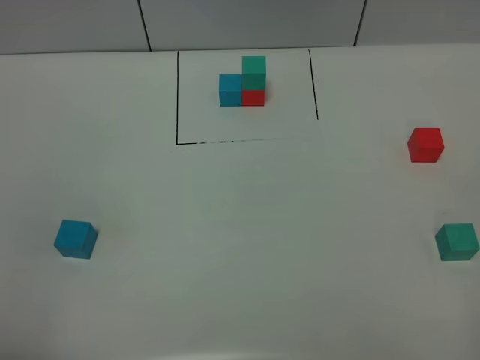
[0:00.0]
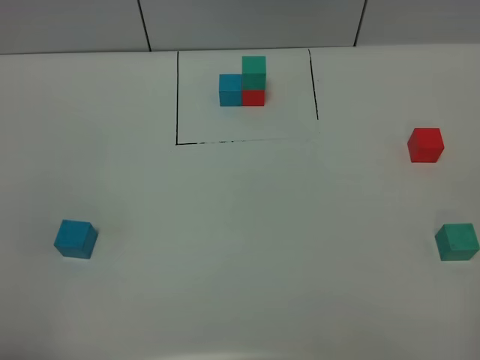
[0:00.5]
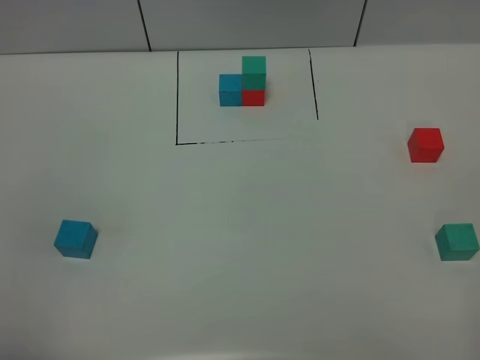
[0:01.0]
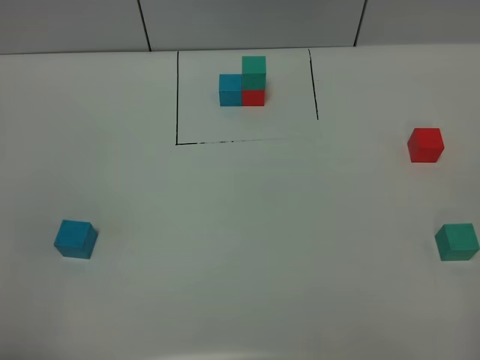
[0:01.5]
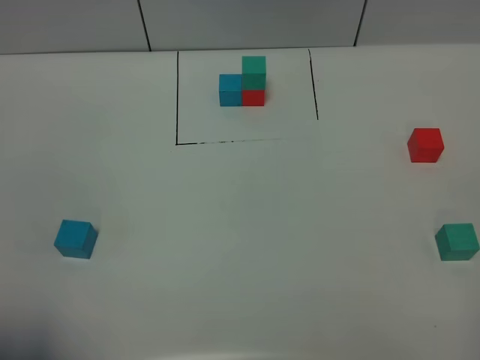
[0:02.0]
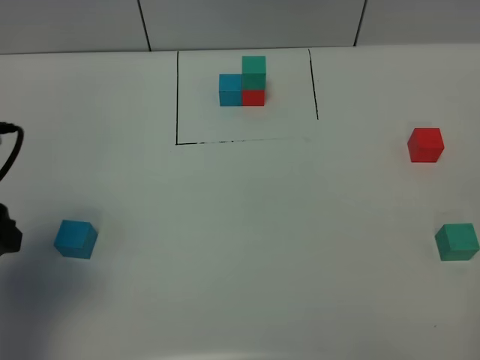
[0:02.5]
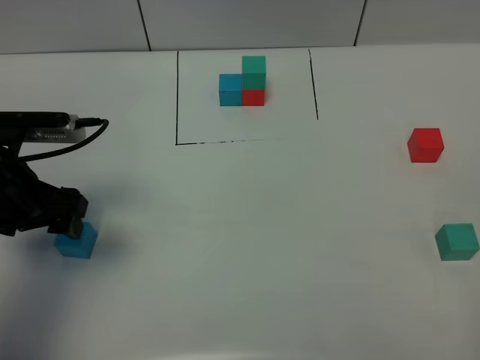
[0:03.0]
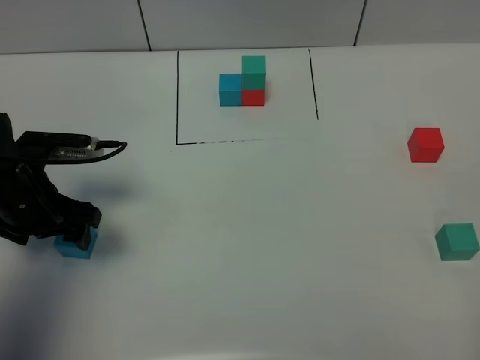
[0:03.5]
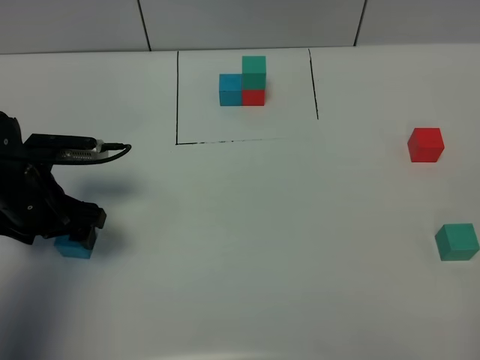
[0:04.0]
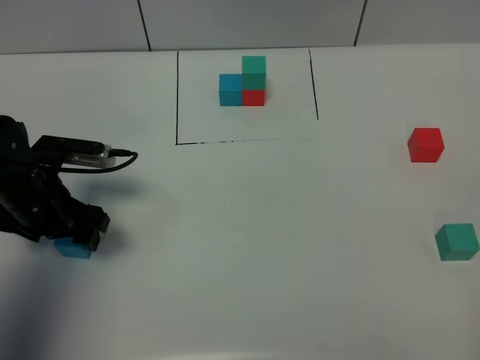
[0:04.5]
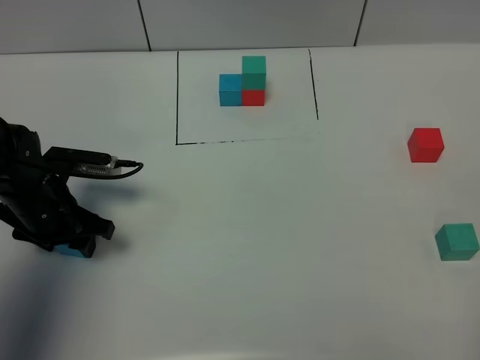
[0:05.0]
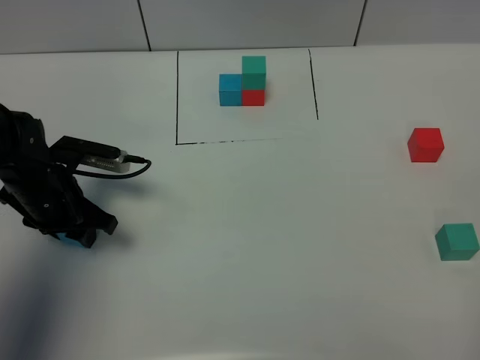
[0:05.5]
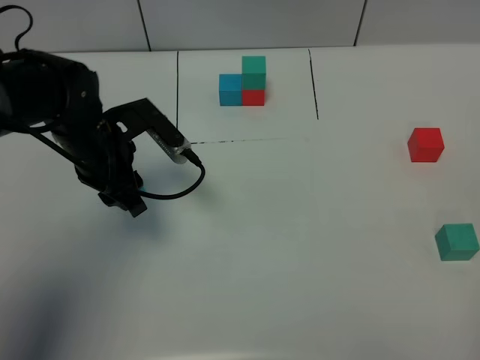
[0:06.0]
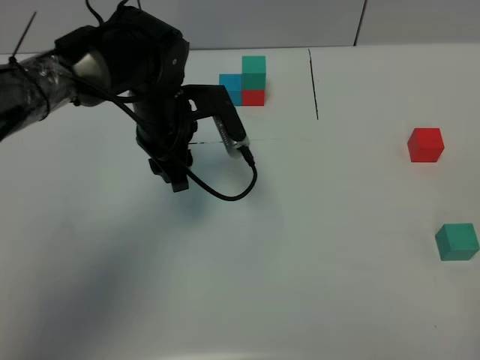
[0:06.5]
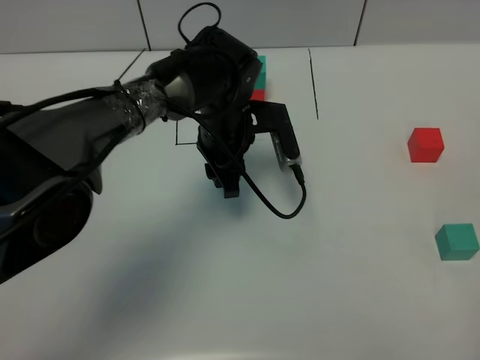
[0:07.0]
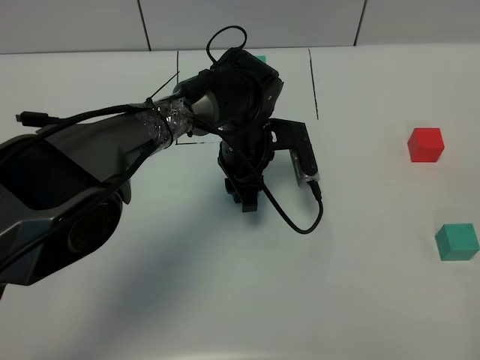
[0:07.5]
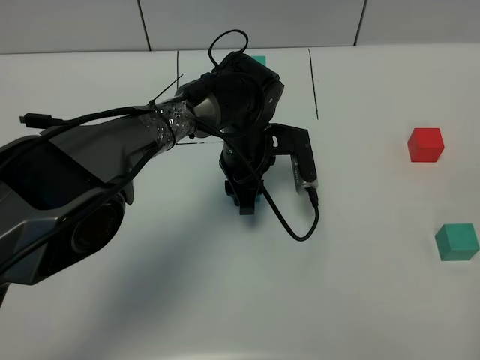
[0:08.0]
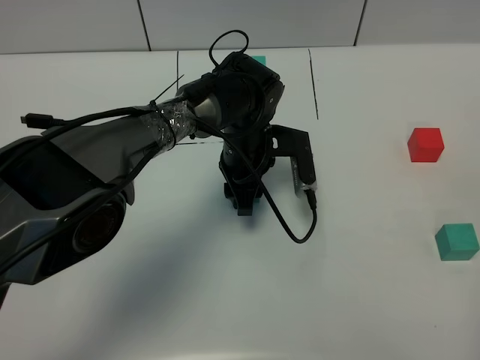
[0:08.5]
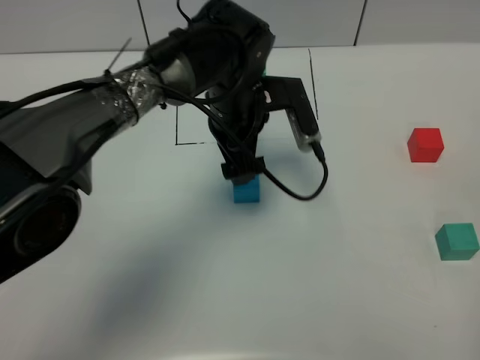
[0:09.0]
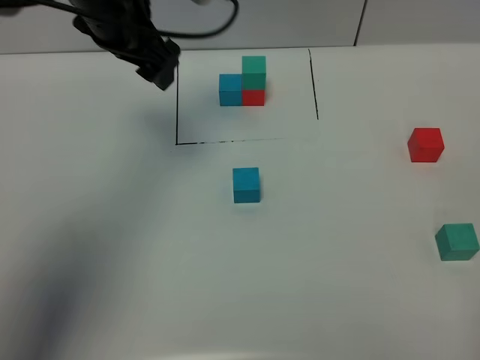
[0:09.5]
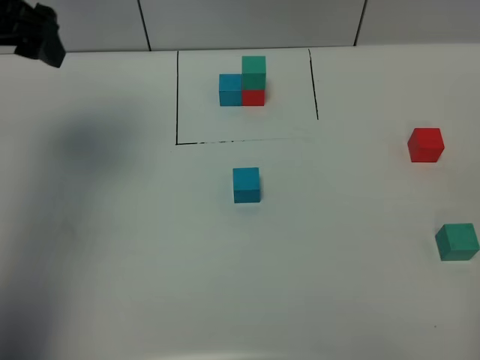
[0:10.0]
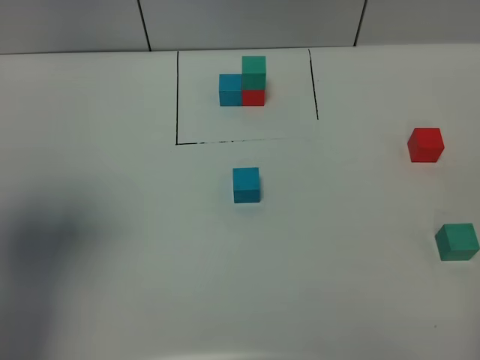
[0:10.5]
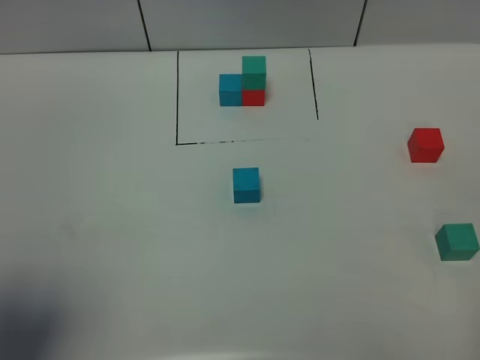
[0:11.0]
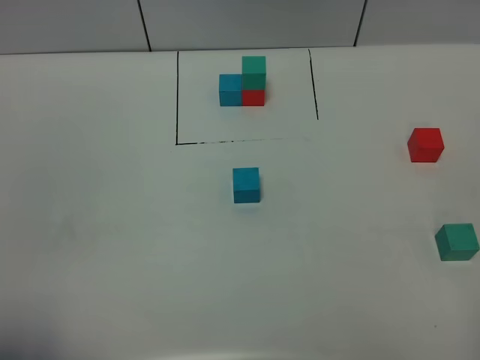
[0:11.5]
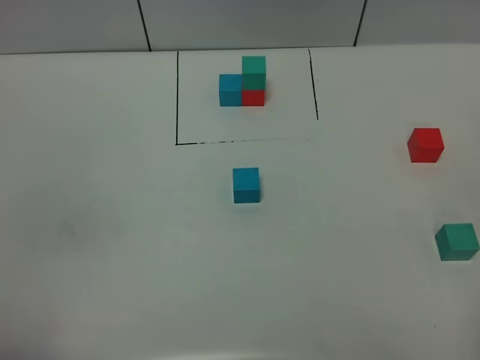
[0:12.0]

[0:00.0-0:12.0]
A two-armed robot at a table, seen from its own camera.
Task of the whole recording: According to the building block template in front, assemble the scattered blocks together.
Step, 0:00.0 to 0:08.5: Put the blue build block in the center of the table.
0:02.0 to 0:04.0: The left gripper travels forward and downward by about 30 cm.
0:04.0 to 0:06.0: The left gripper is displaced to the right and forward by approximately 10 cm, and closes its fingers.
0:06.0 to 0:08.0: The left gripper goes roughly 20 cm to the right.
0:08.0 to 0:10.0: The left gripper is displaced to the left and upward by approximately 35 cm, and opens its fingers.
0:10.0 to 0:12.0: The left gripper moves backward, some 35 cm.

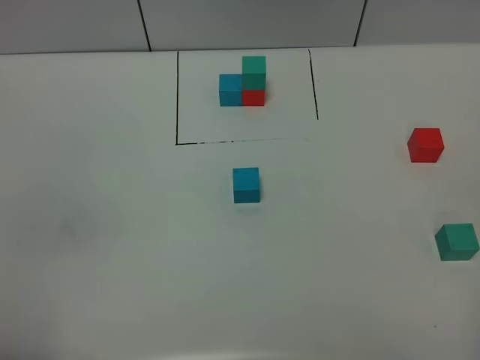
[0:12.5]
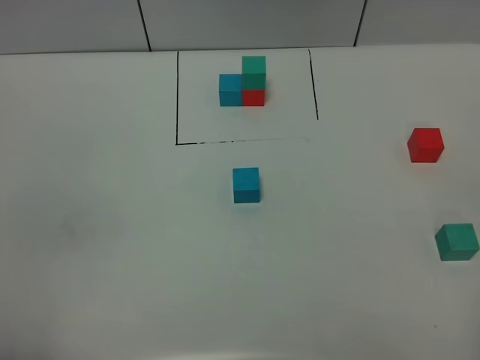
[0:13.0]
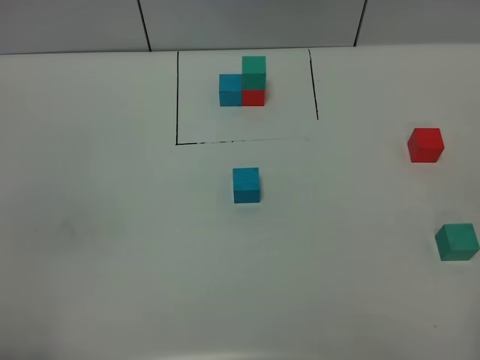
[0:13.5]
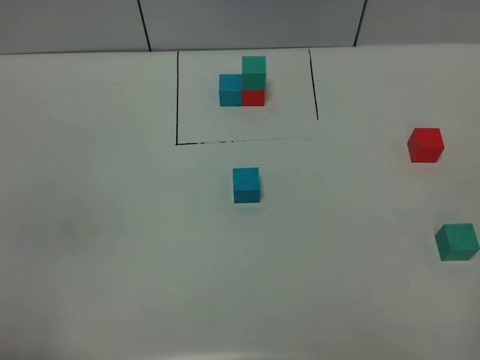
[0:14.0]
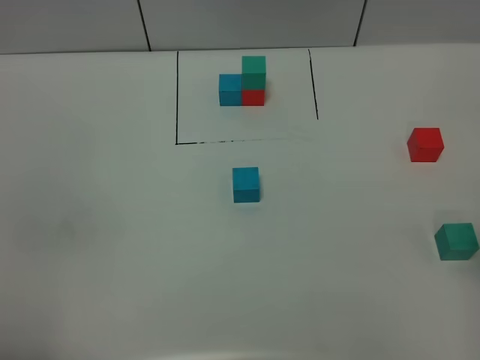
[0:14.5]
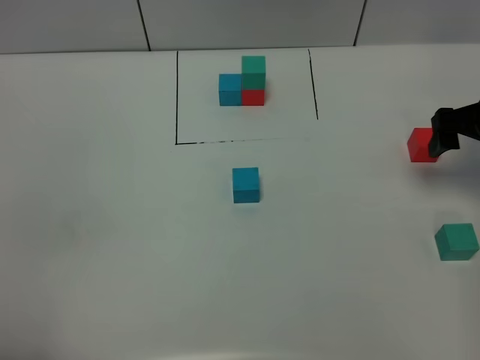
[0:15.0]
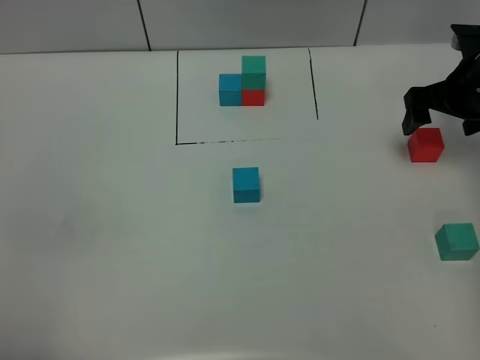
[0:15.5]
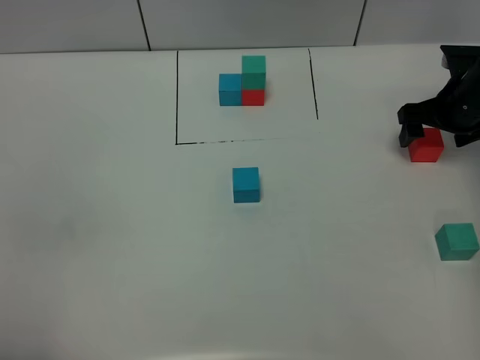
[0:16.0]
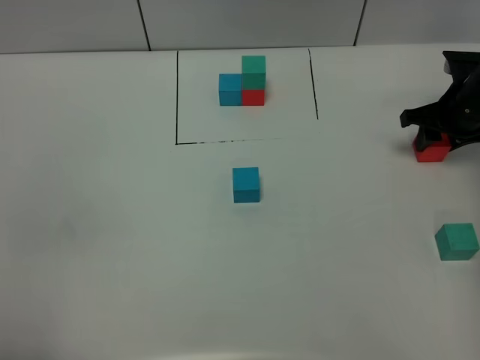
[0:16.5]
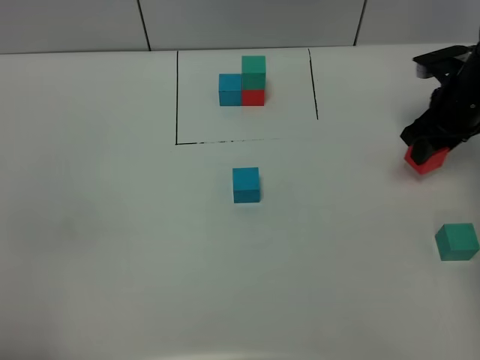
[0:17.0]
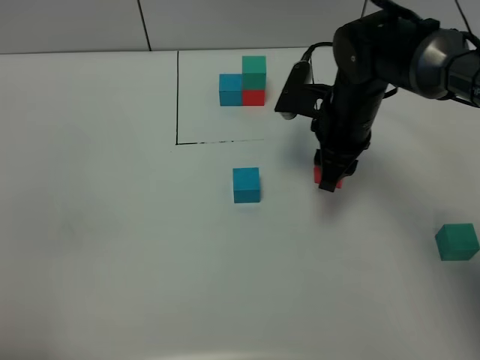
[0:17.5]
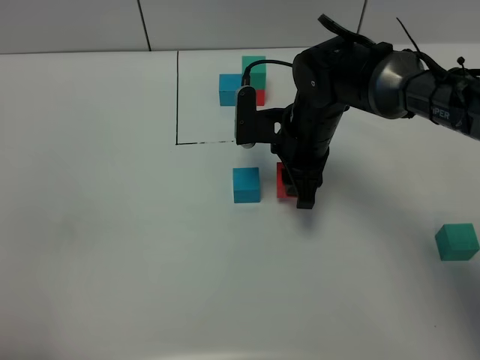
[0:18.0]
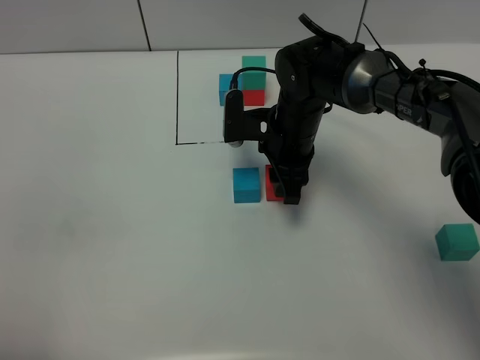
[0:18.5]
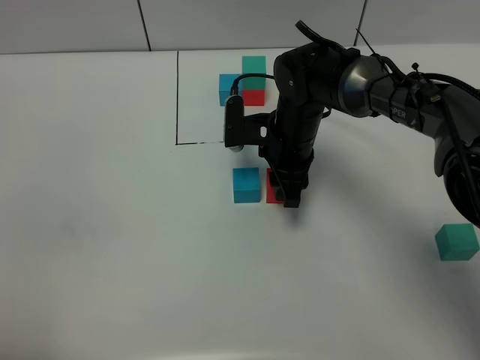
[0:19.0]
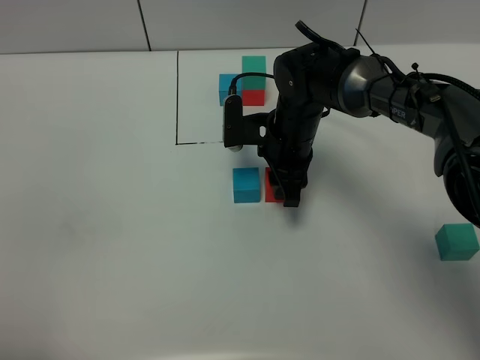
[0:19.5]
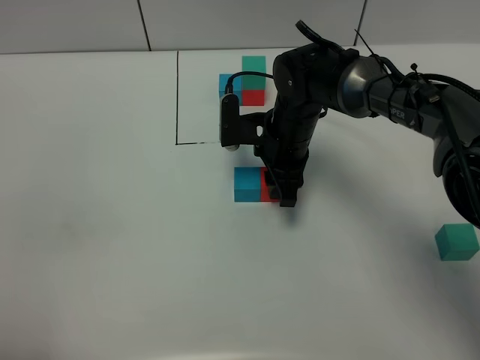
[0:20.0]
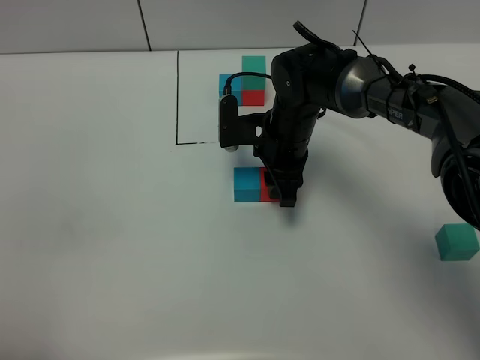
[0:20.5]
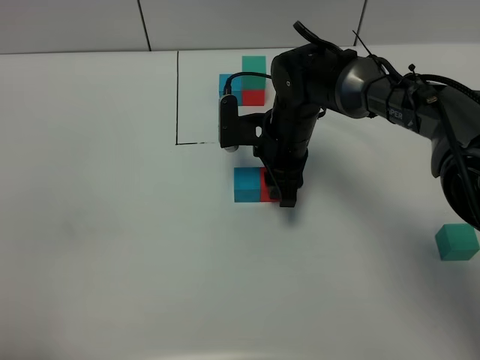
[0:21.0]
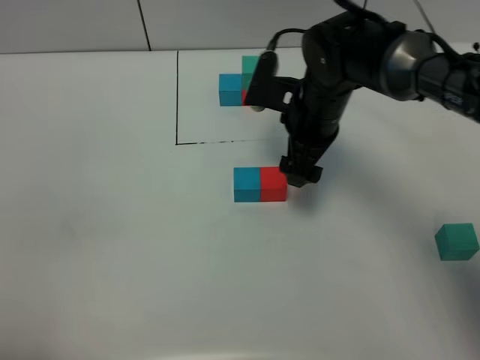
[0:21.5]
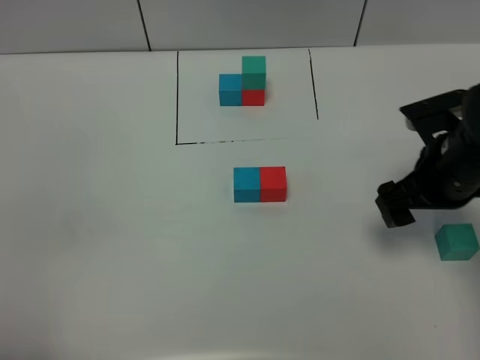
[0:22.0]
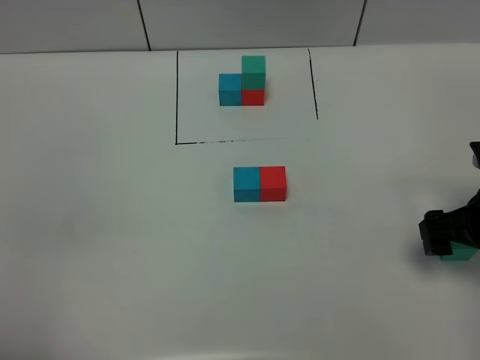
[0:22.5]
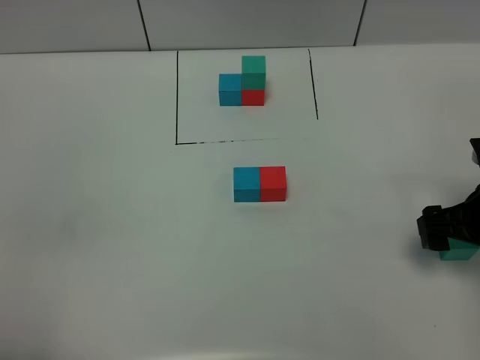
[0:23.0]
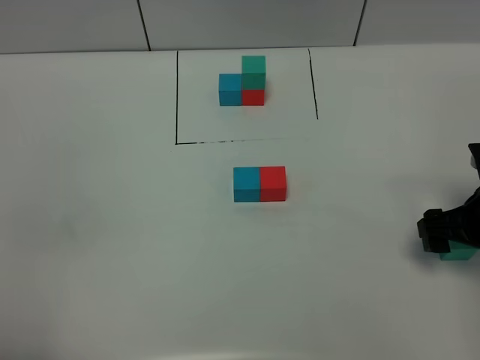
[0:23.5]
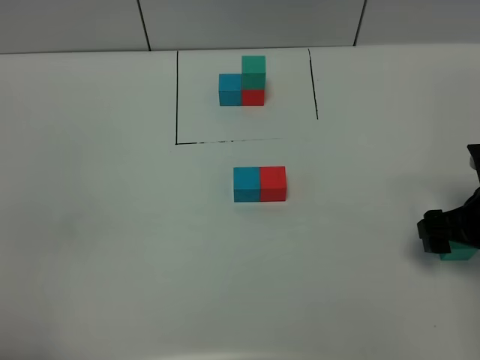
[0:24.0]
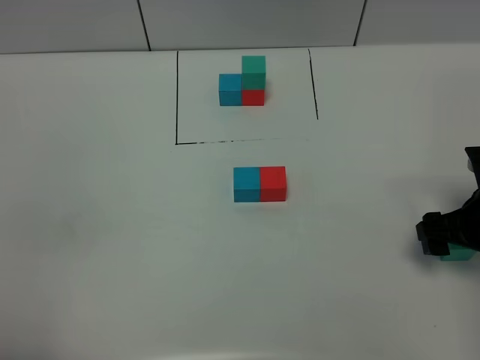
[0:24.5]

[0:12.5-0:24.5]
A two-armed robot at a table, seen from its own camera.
Task of the whole recording: According to the building block template in front, assemble the scattered blocks together.
Step, 0:12.5 to 0:21.0: Put the red build block on the right of the blue build block.
0:14.5 to 0:16.5: The right gripper travels forward and downward by roughly 30 cm, and closes its fingers.
0:16.5 to 0:18.5: The right gripper heads to the left, covering about 25 cm.
0:18.5 to 0:20.5: The two grippers keep their place.
0:20.5 to 0:22.5: The right gripper goes roughly 25 cm to the right and backward, and opens.

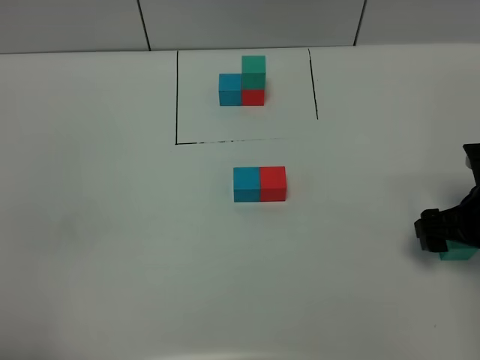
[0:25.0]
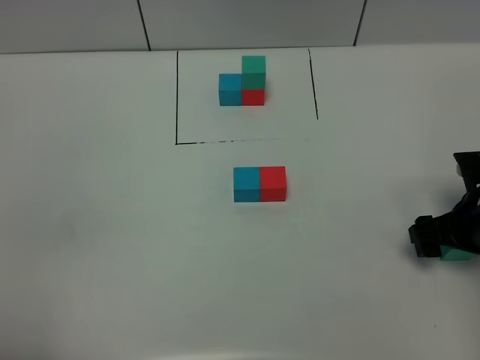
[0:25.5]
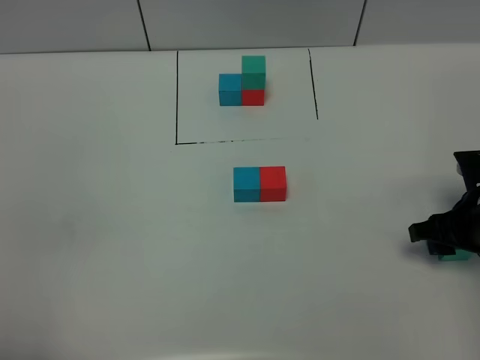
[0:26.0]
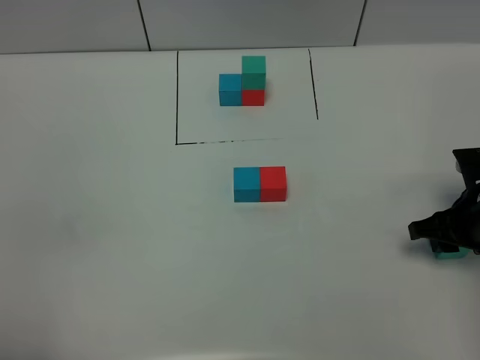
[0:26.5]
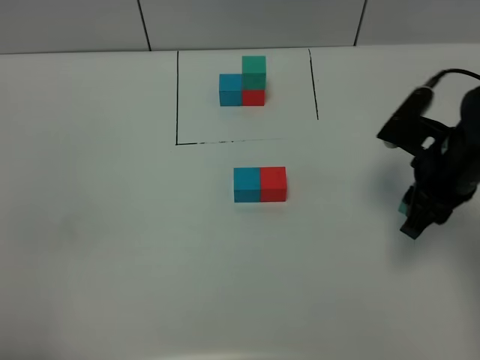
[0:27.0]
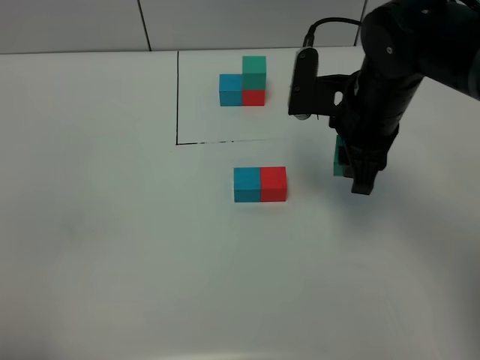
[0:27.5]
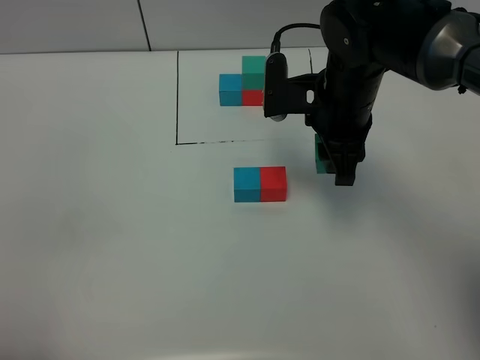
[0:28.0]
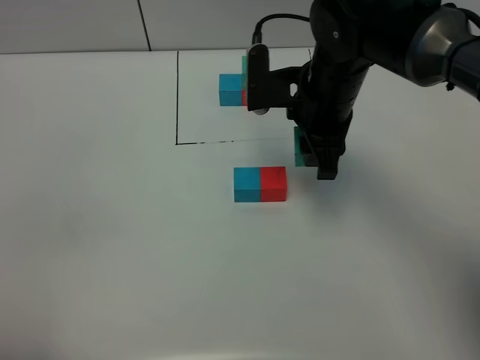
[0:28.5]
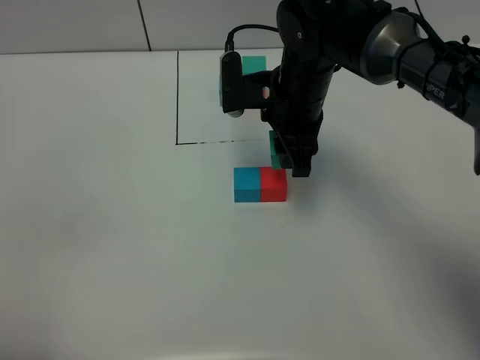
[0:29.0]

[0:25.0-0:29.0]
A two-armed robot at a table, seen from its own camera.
Task of the whole recording: According to the building block template in front, assemble the scattered blocks together.
0:25.0 to 0:27.0: The right gripper heads to the left and upward, covering some 10 cm, and closes its fingers.
0:27.0 to 0:29.0: The right gripper heads to the left and forward, covering roughly 20 cm.
